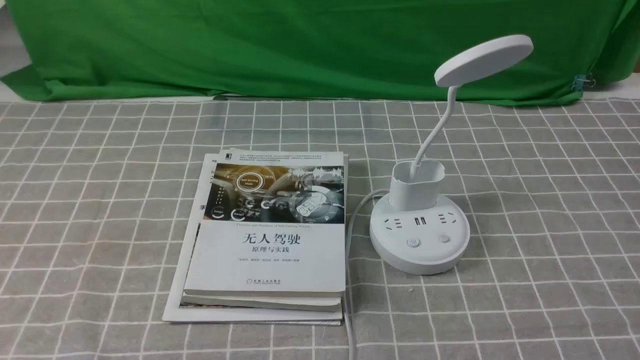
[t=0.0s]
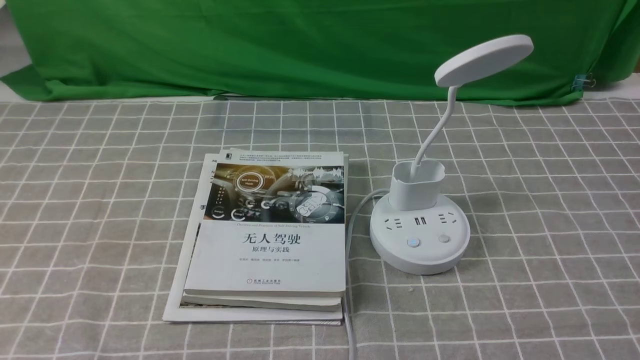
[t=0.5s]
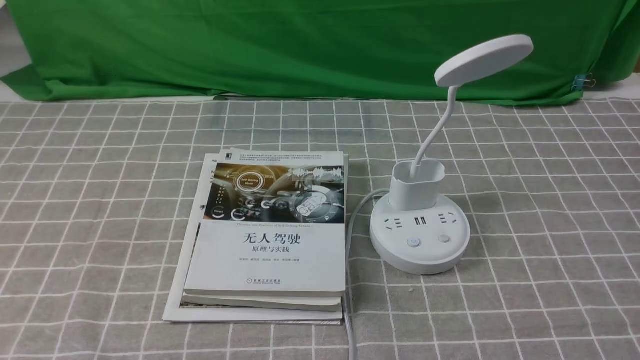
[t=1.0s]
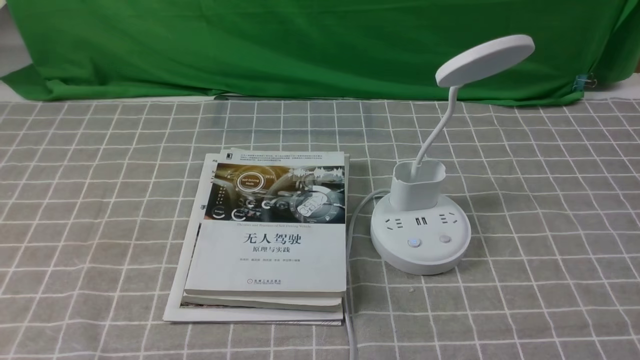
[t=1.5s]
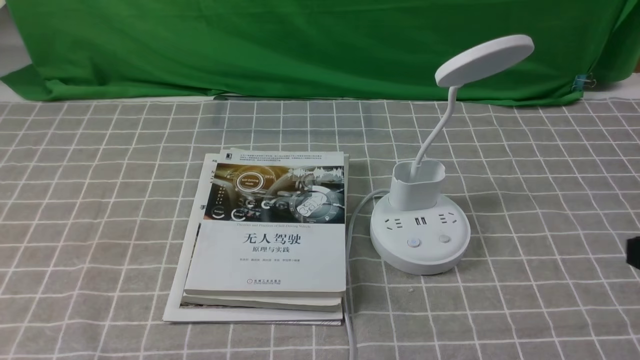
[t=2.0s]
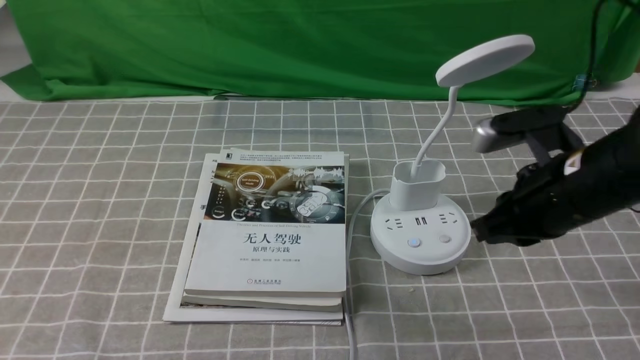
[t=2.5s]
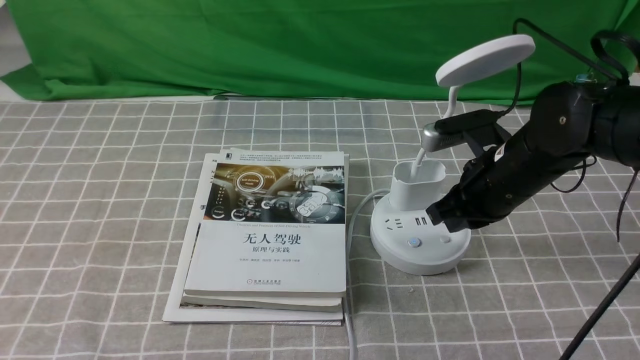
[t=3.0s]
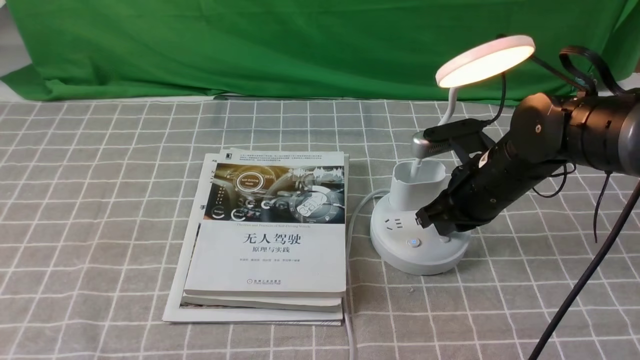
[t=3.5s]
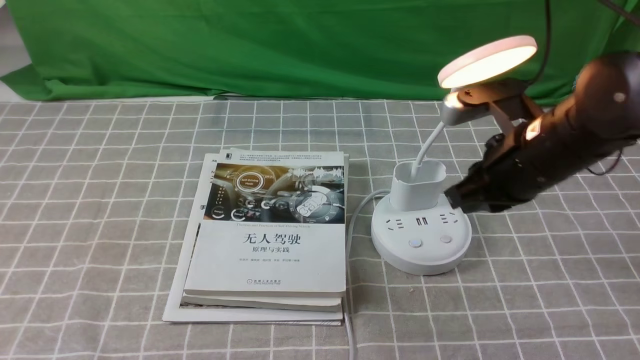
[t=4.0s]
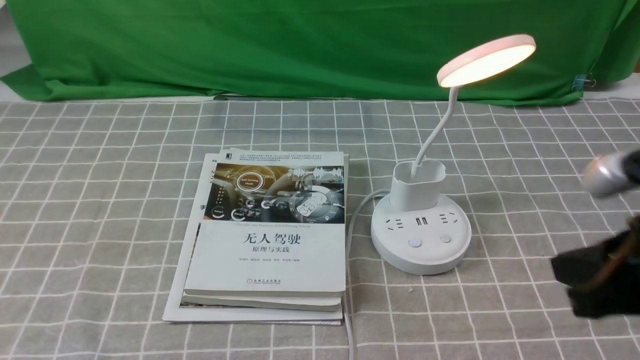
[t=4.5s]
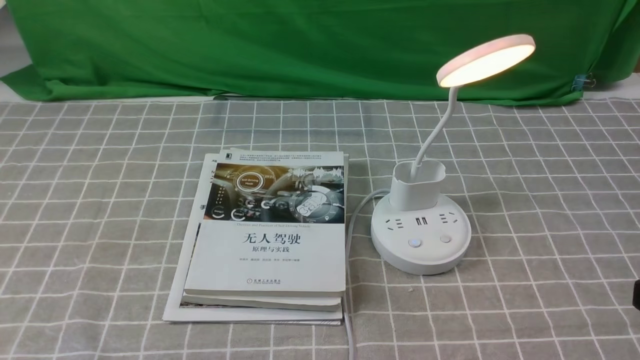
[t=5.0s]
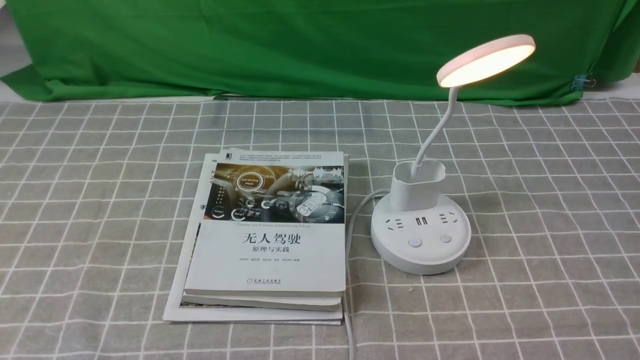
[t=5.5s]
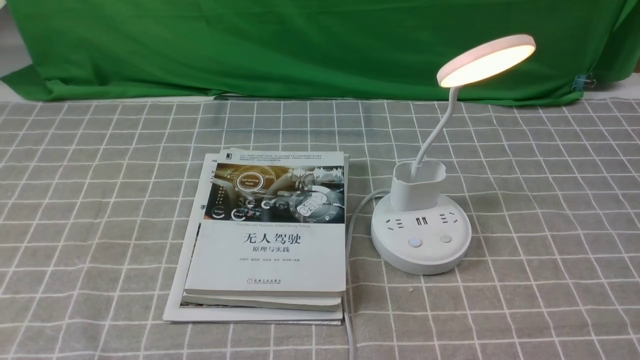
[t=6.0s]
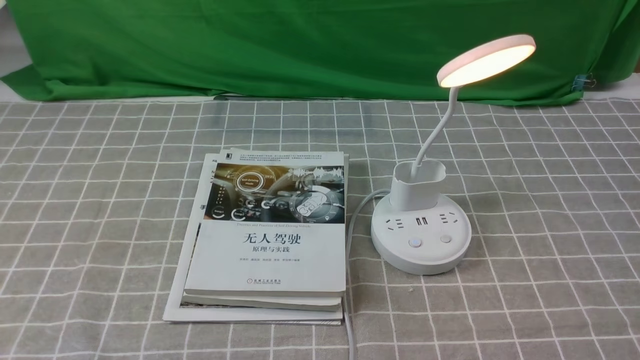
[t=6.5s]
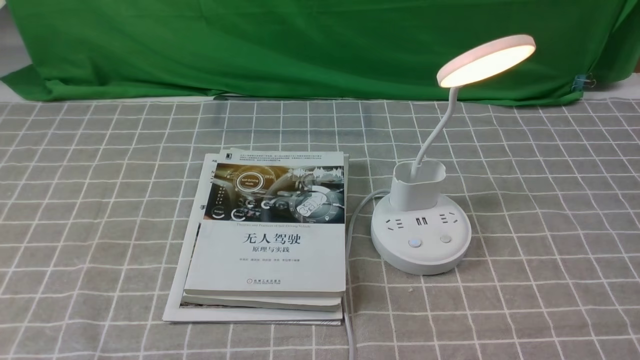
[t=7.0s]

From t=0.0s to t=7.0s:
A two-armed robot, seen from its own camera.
Step, from t=0.0s to t=3.5s: use the right arm to press the button switch on the lamp holder.
From t=2.0s to t=3.5s: The right gripper moves forward, downward and to the left, about 25 cm.
From t=3.5s to t=5.0s: The right gripper moves backward, about 25 cm.
